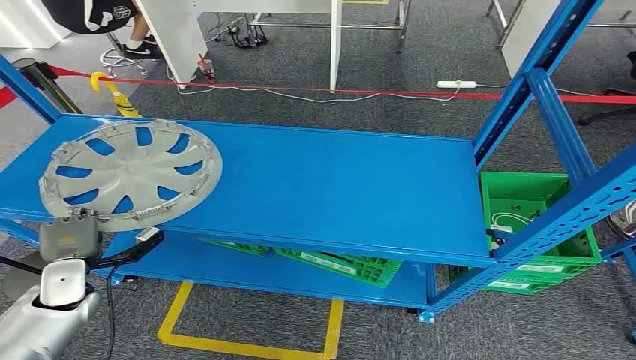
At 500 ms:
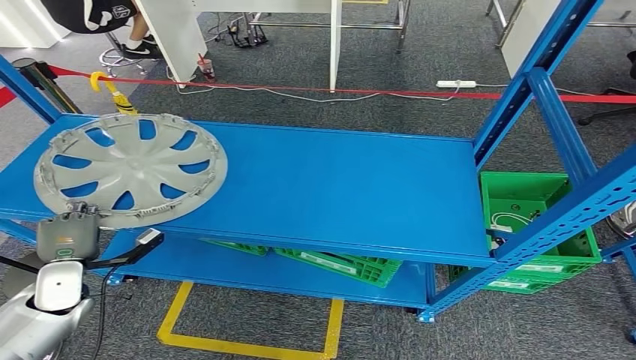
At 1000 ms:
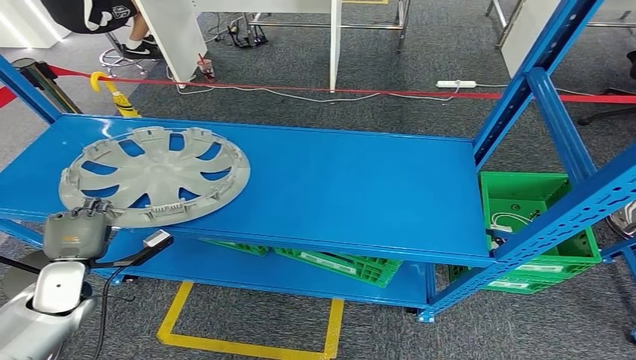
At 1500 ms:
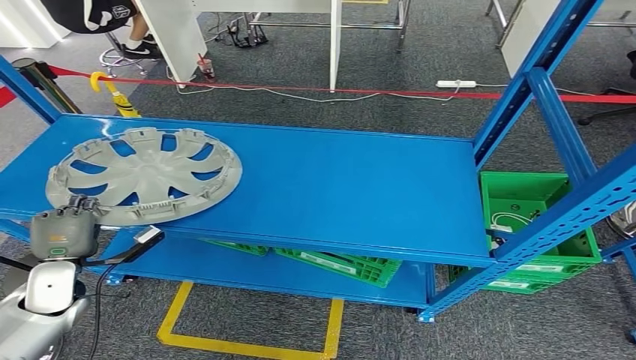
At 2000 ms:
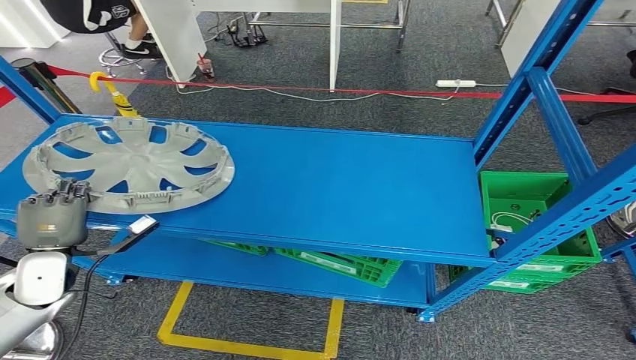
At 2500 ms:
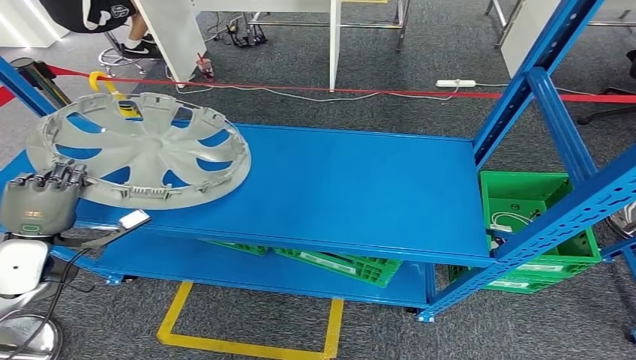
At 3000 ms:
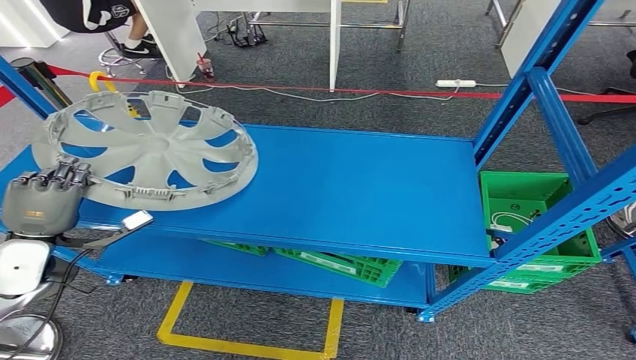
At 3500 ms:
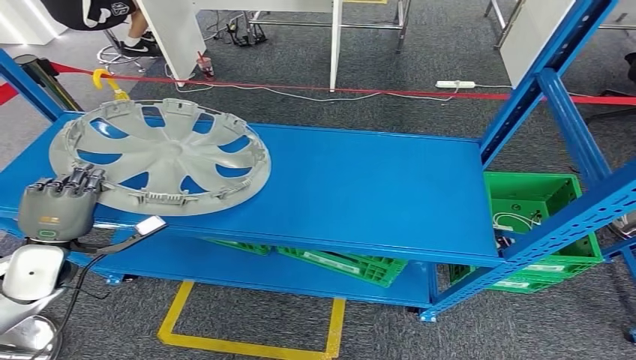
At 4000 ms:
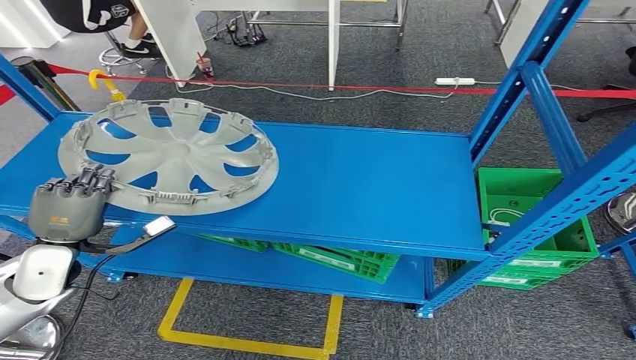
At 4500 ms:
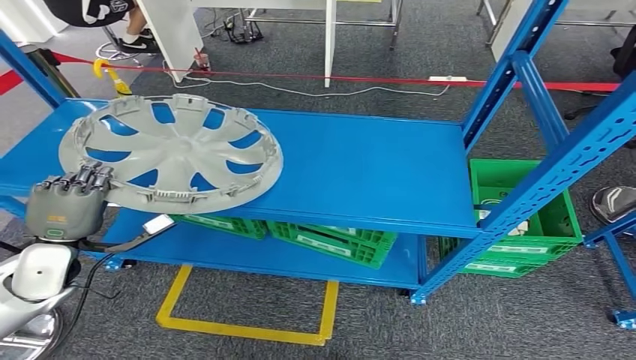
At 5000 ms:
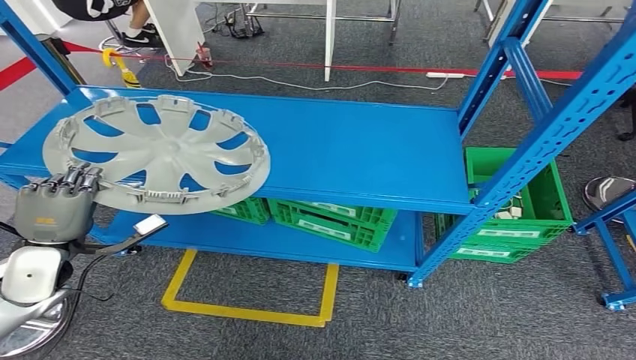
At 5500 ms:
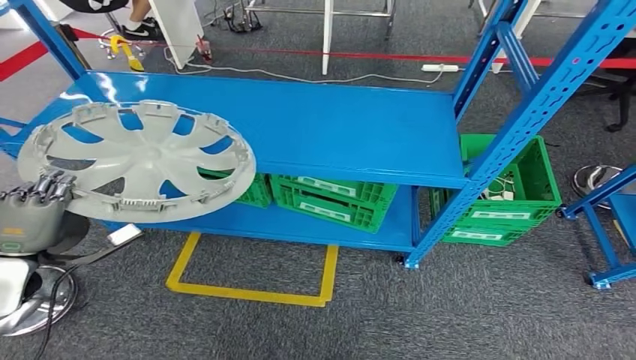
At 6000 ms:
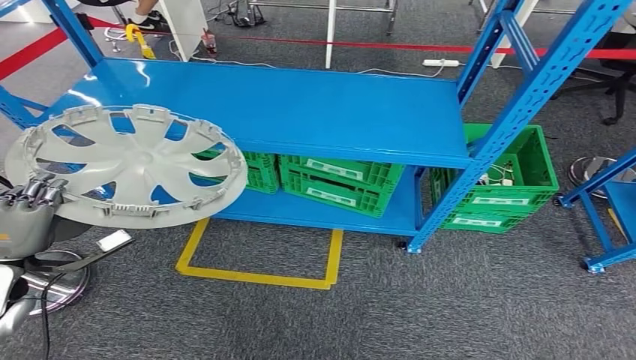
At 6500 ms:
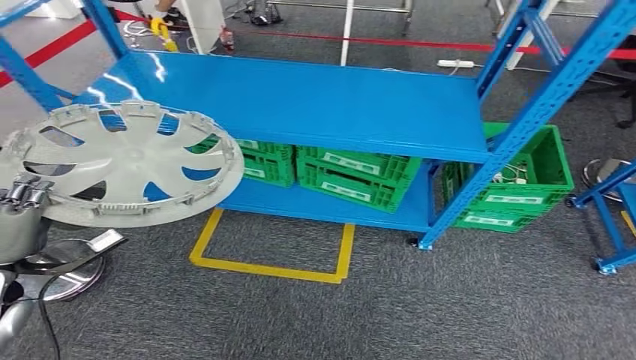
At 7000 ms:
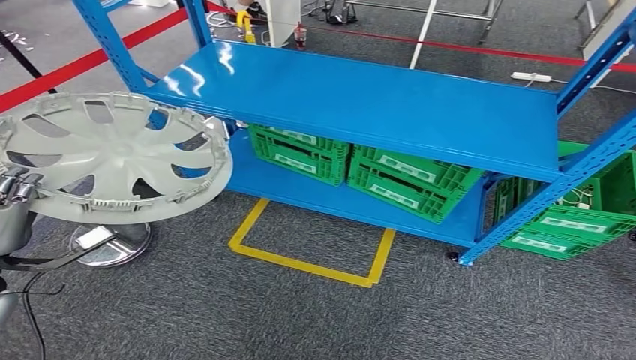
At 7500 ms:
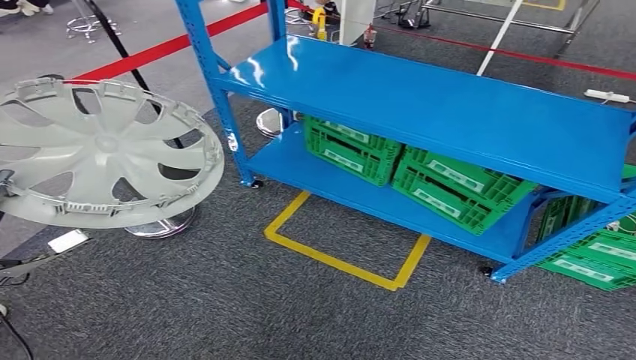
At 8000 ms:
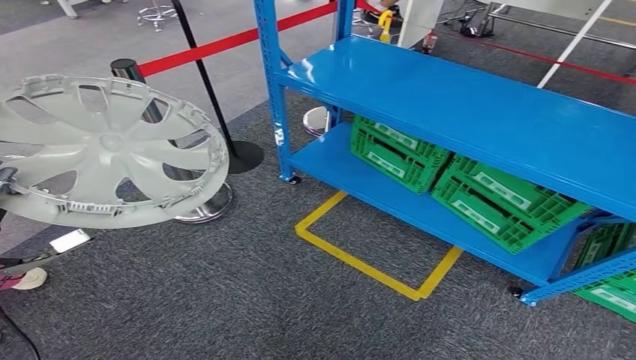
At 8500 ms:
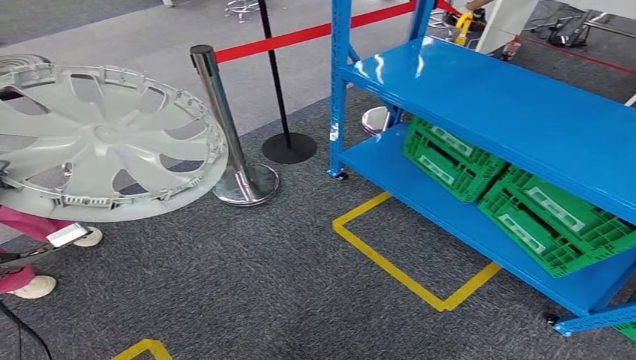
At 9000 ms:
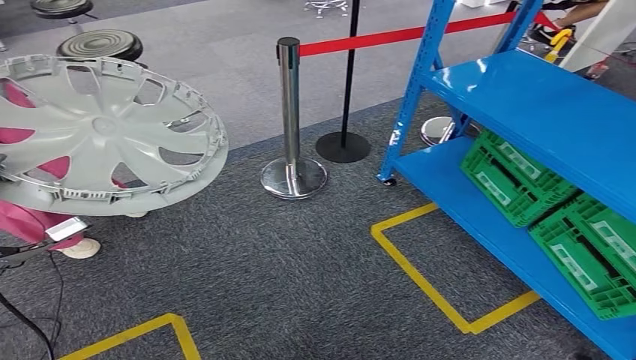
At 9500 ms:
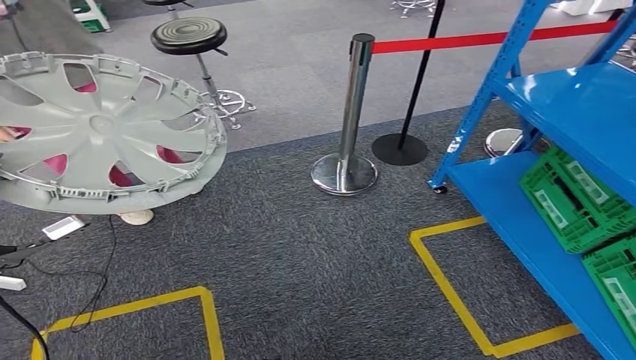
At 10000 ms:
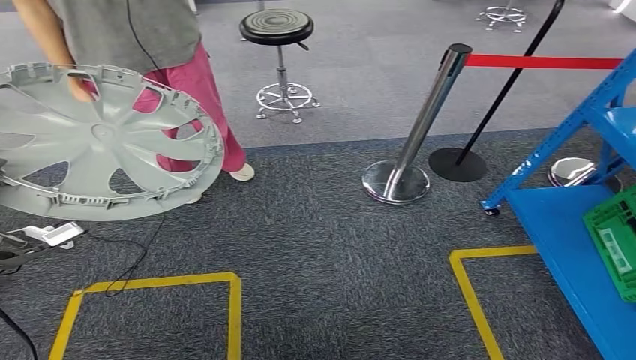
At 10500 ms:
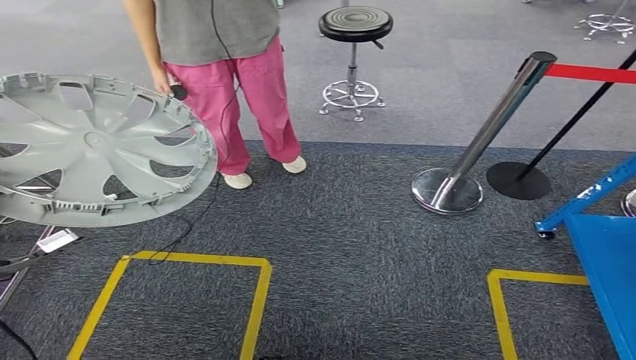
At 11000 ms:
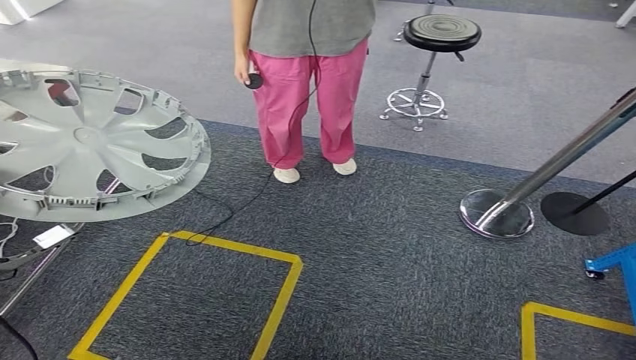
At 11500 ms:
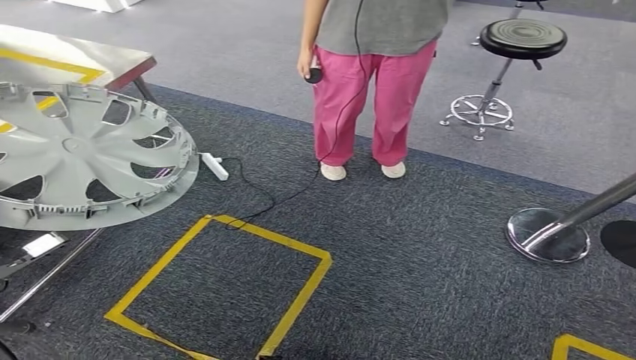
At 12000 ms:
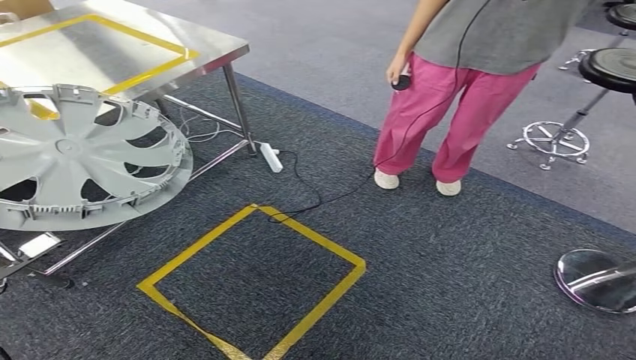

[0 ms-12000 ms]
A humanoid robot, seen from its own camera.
Step, 0 ms to 5500 ms: Pick up the small component from the shelf.

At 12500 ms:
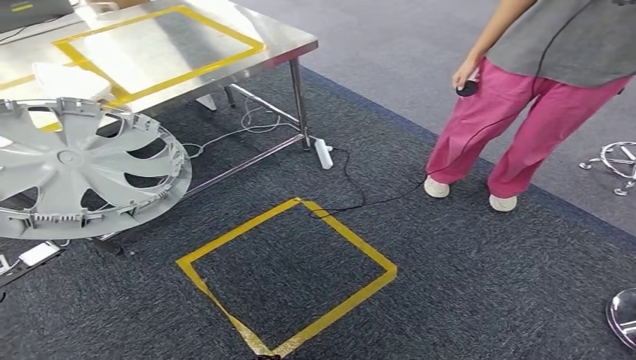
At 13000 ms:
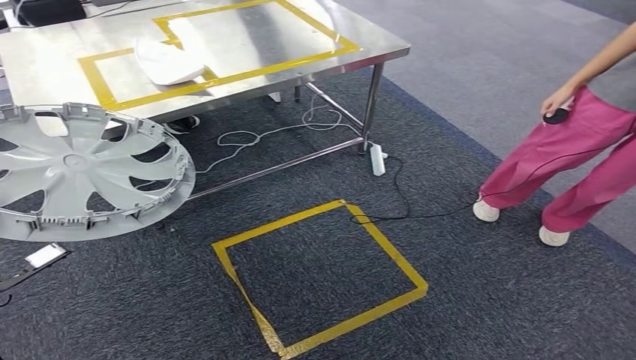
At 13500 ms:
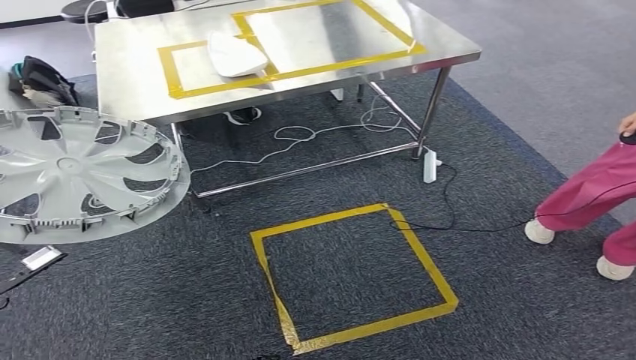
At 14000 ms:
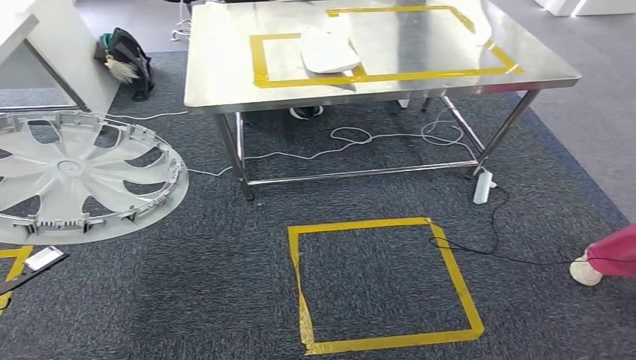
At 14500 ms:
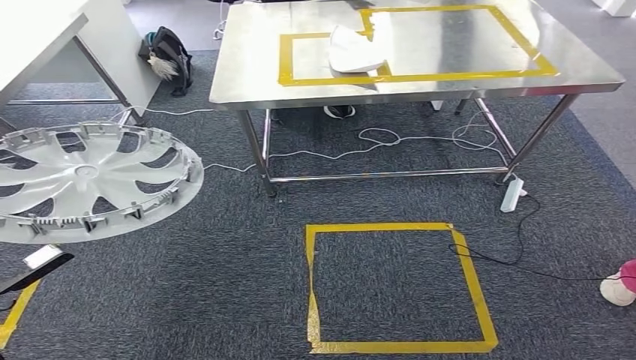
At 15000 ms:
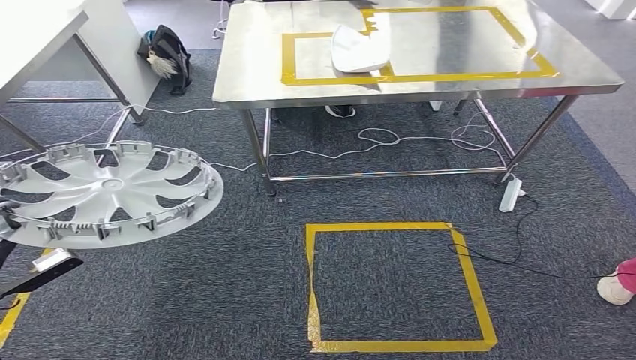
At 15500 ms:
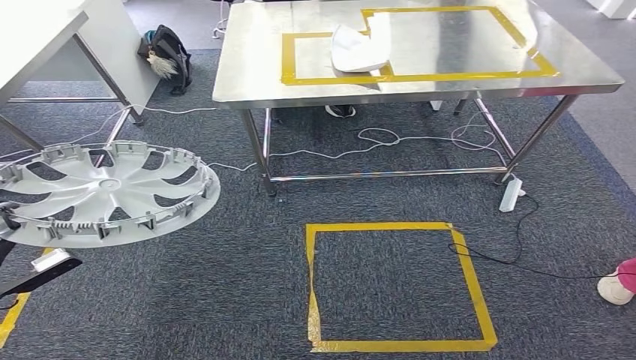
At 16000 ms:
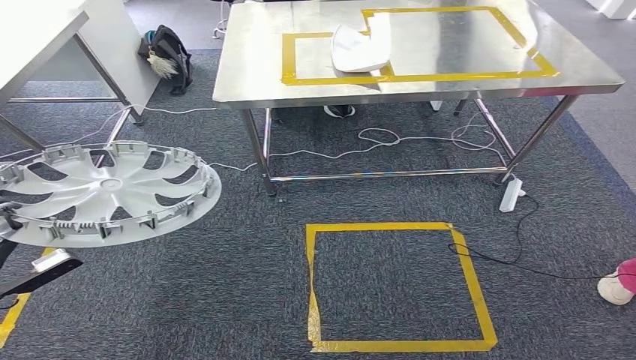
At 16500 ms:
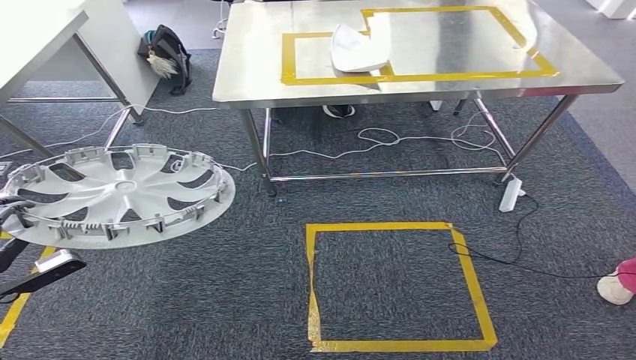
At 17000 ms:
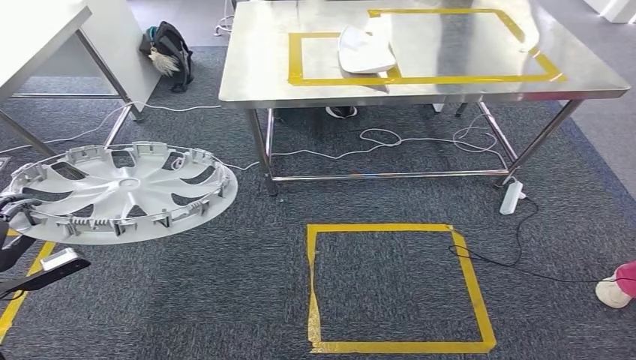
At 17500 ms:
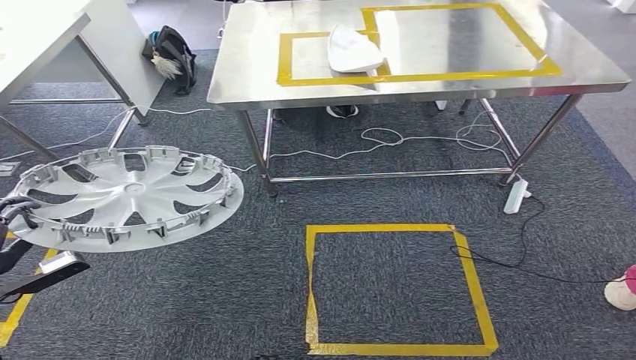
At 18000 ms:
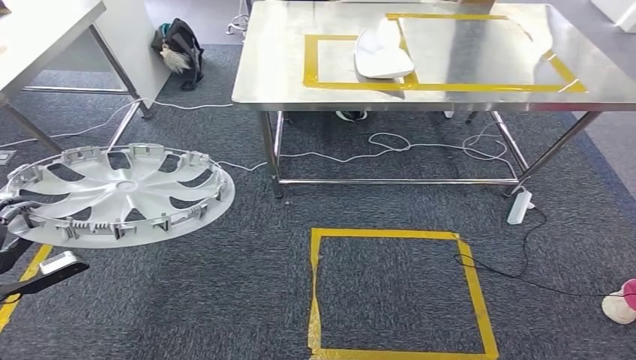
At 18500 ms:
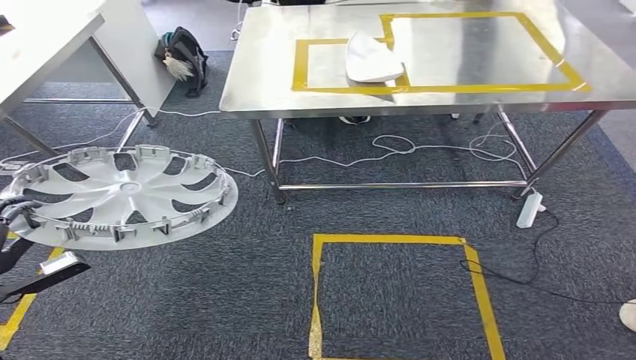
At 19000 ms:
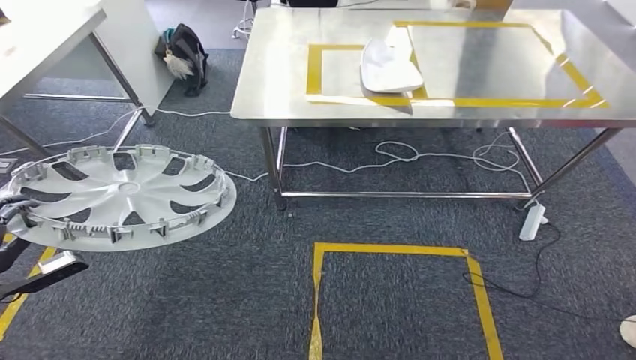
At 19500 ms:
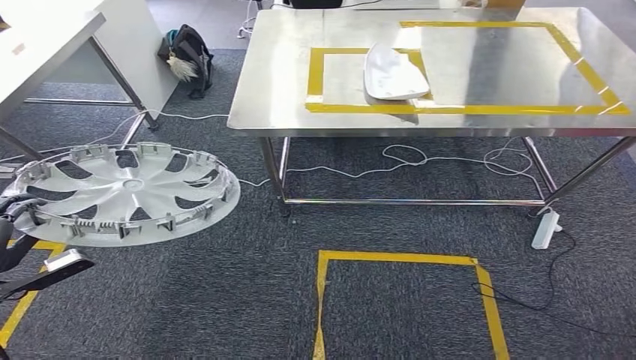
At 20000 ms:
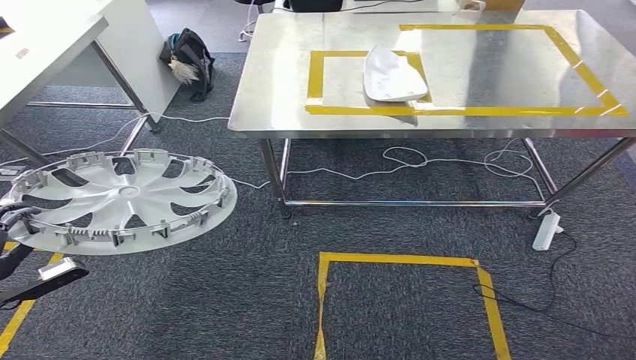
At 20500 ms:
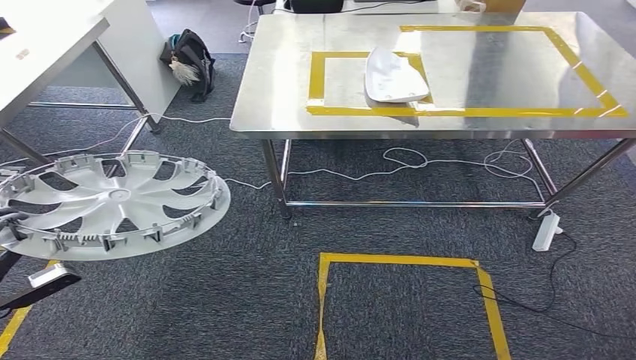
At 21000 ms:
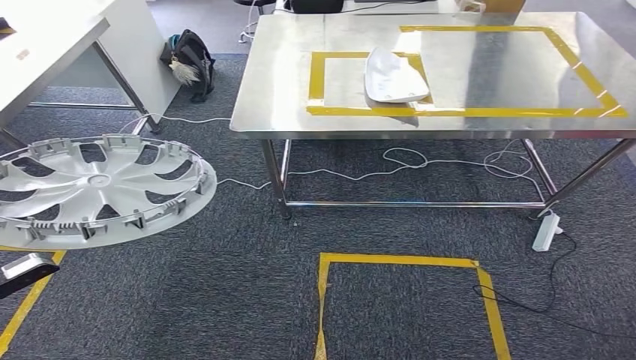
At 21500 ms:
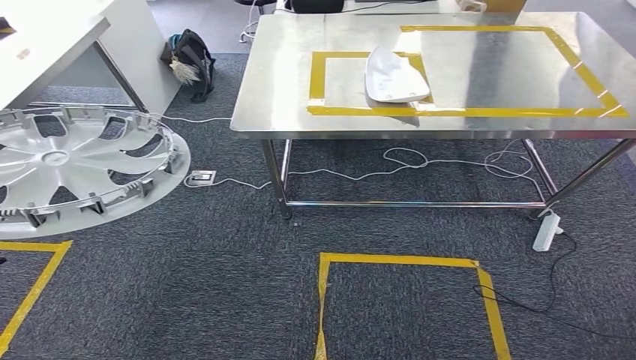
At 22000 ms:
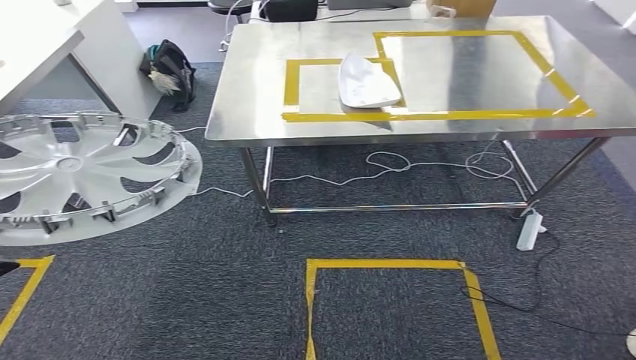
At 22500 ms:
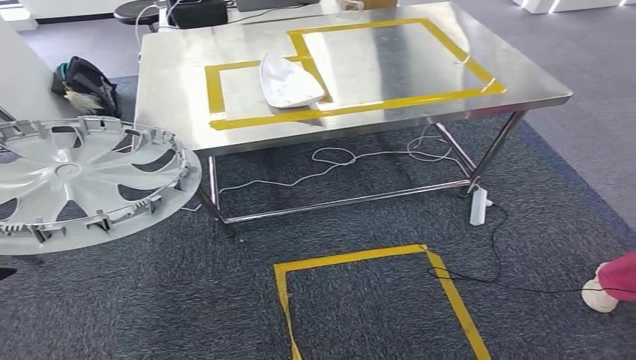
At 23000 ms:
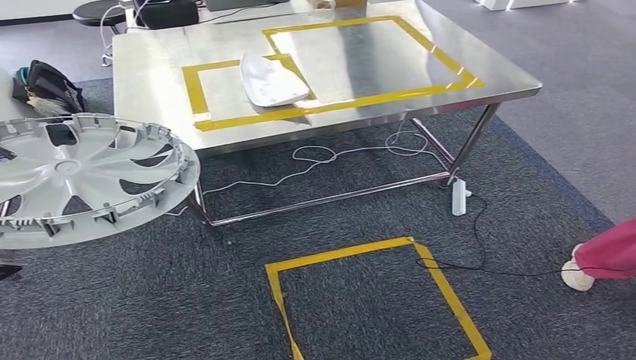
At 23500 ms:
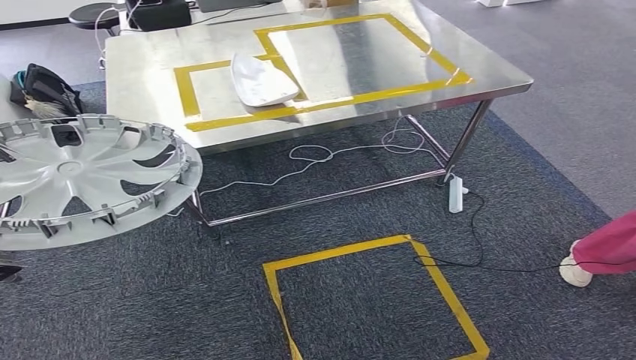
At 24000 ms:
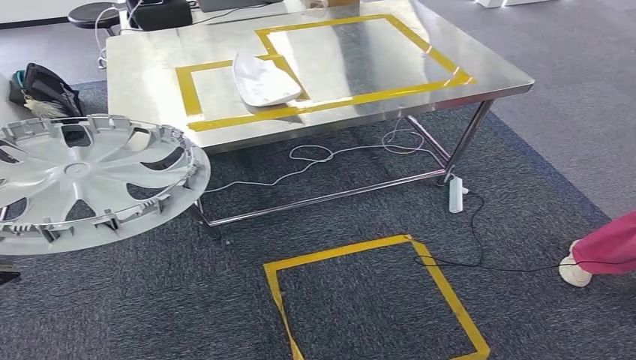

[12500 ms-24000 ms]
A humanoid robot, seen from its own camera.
14500 ms to 16500 ms: The hands make only small movements.
